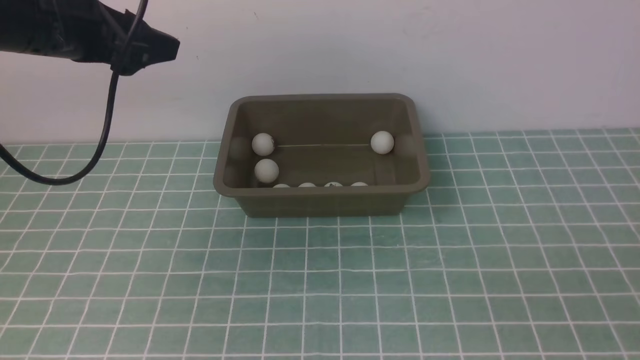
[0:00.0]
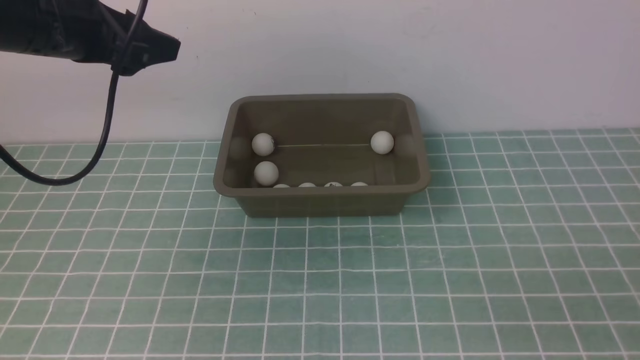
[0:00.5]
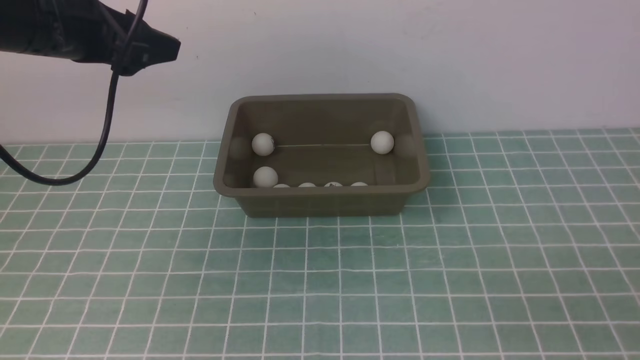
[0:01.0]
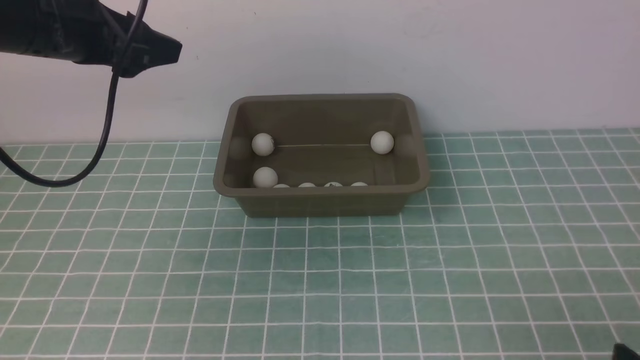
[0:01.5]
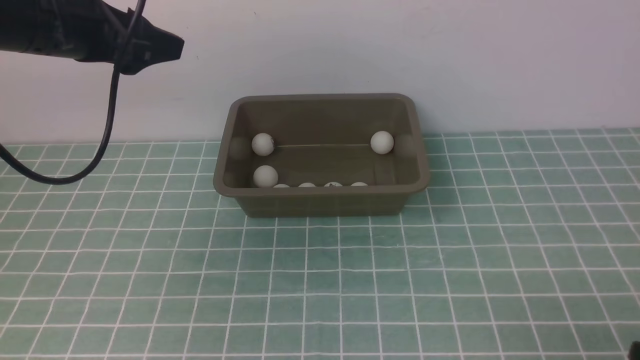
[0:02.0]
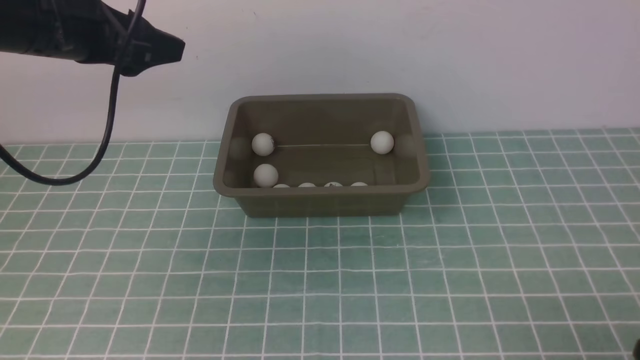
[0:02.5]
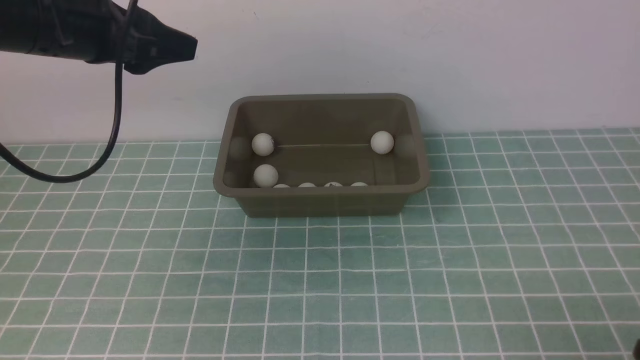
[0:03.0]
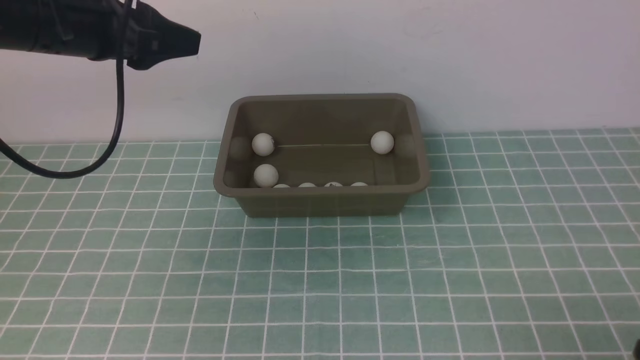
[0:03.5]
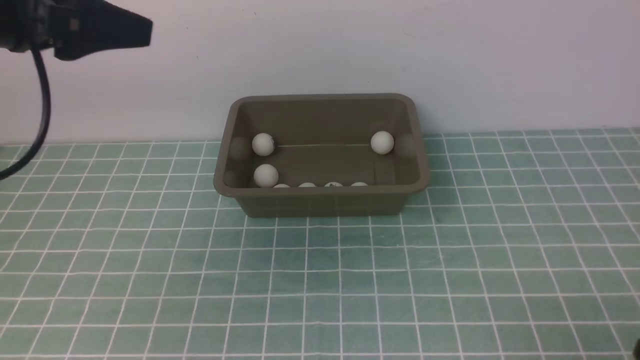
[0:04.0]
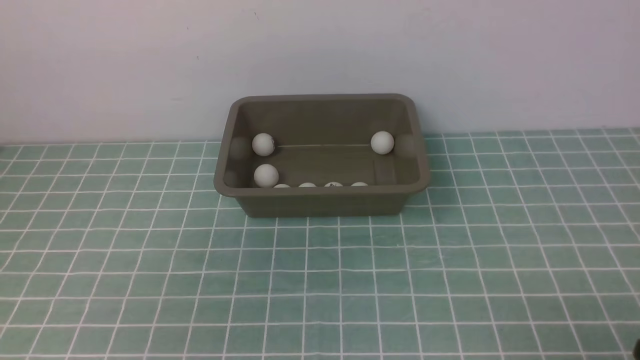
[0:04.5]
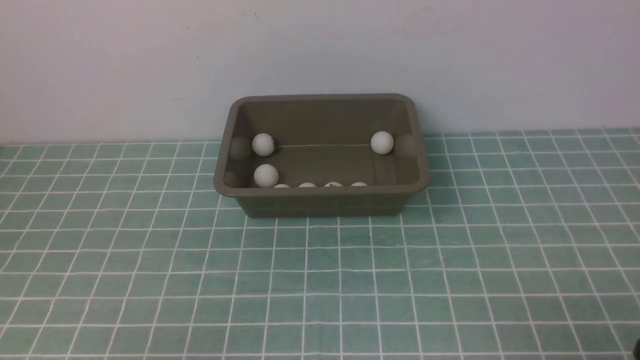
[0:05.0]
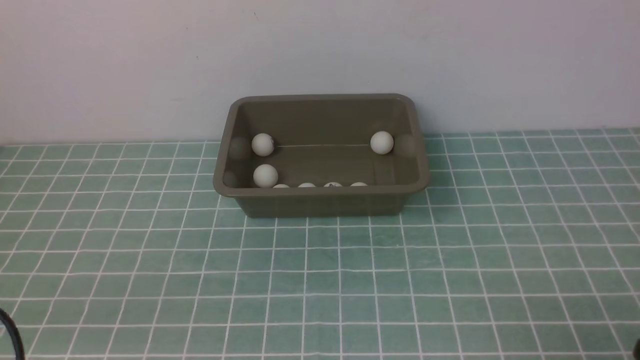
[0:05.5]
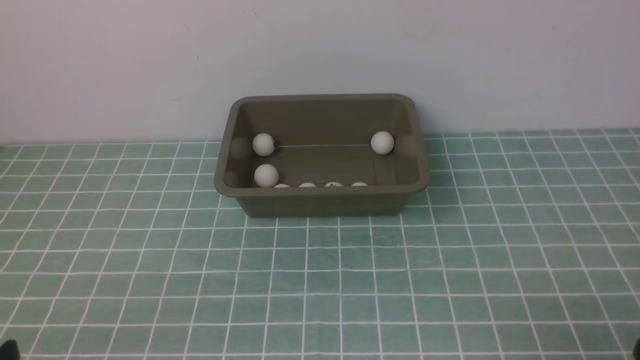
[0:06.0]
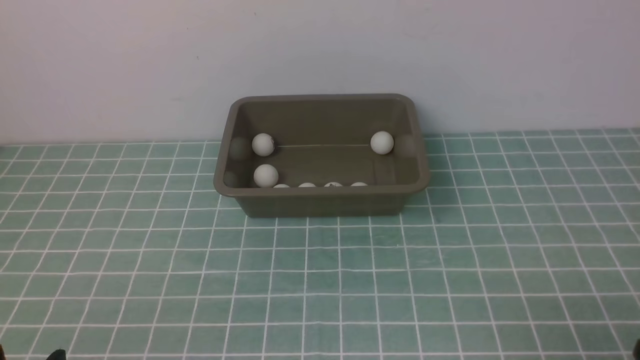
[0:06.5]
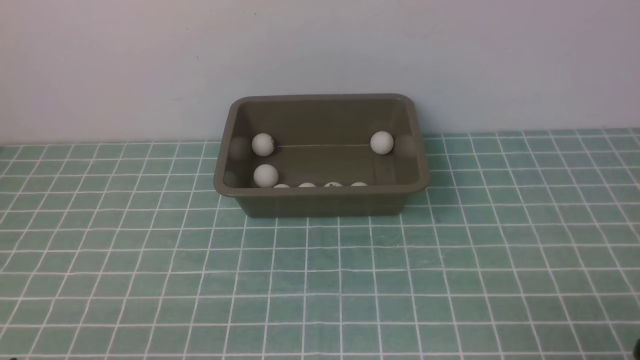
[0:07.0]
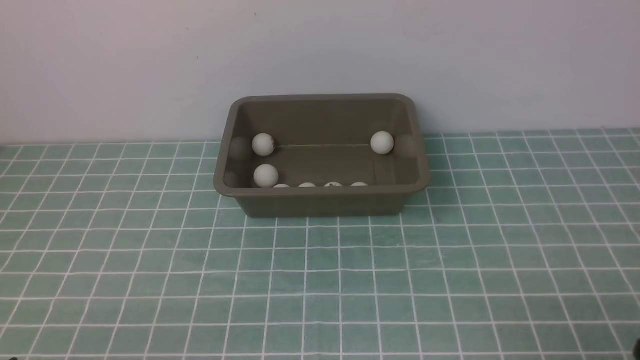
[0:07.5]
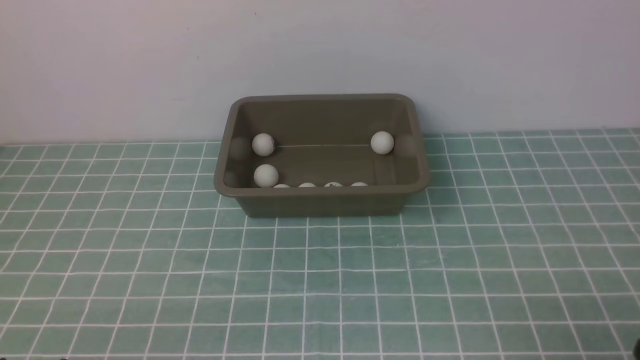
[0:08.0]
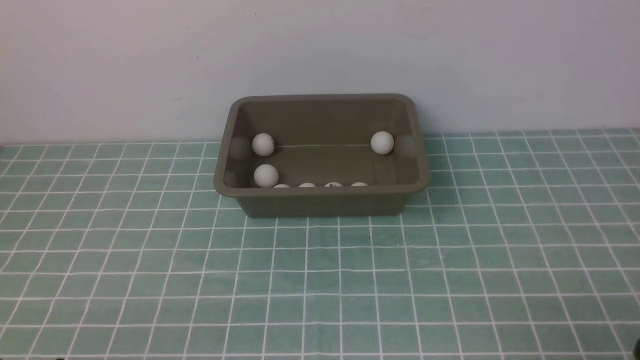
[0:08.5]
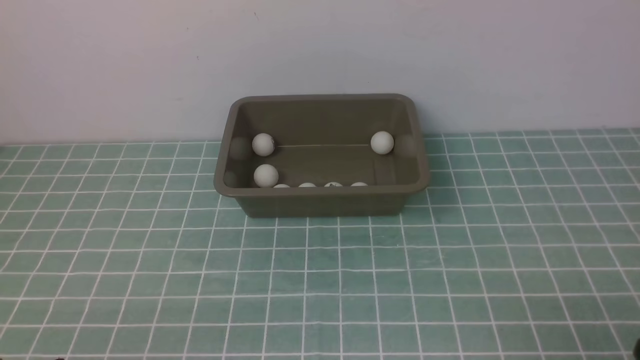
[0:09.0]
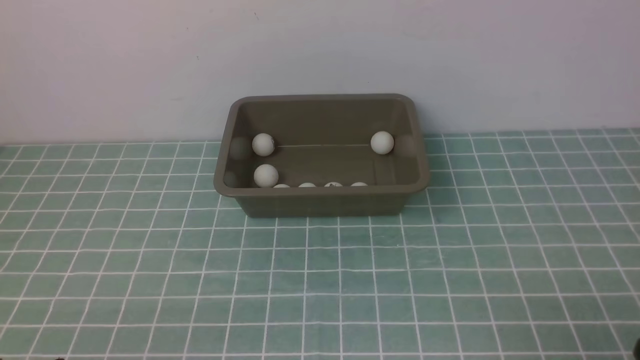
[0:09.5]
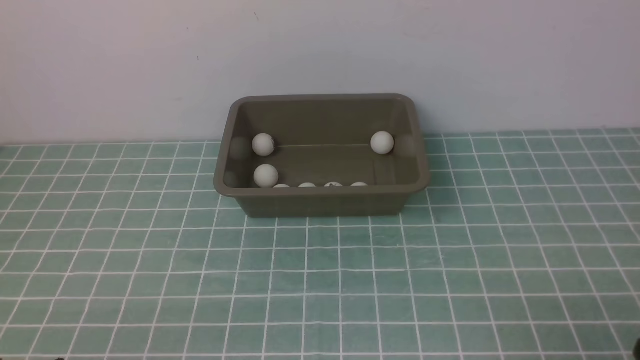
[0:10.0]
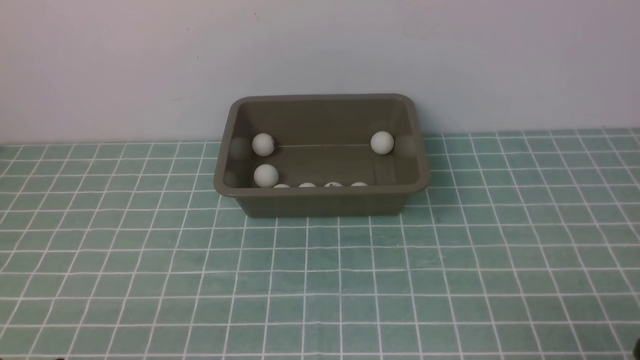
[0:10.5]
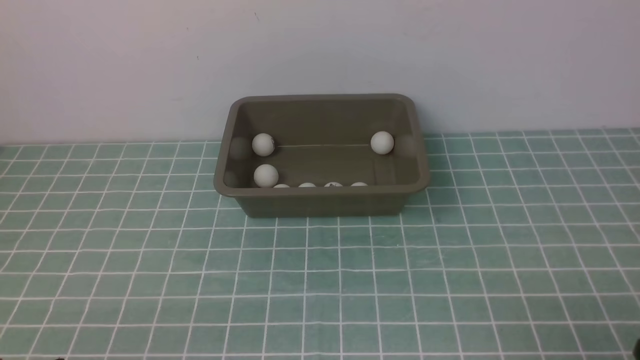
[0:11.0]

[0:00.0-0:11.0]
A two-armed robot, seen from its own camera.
0:02.0 to 0:03.5: The grippers stay close to where they were, moving slightly.
0:03.5 to 0:05.5: The left gripper goes some 30 cm backward and downward.
0:07.5 to 0:11.0: Both grippers stay put.

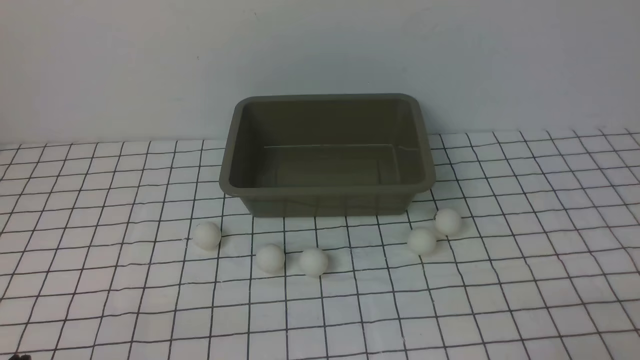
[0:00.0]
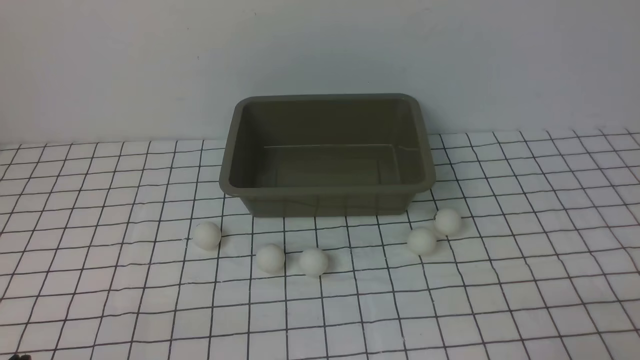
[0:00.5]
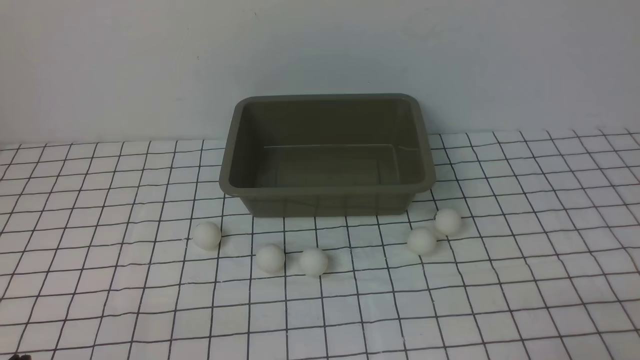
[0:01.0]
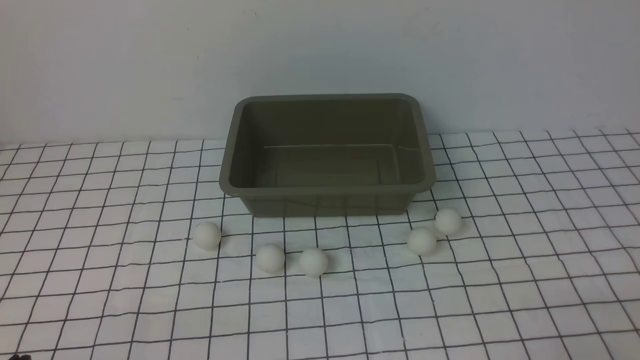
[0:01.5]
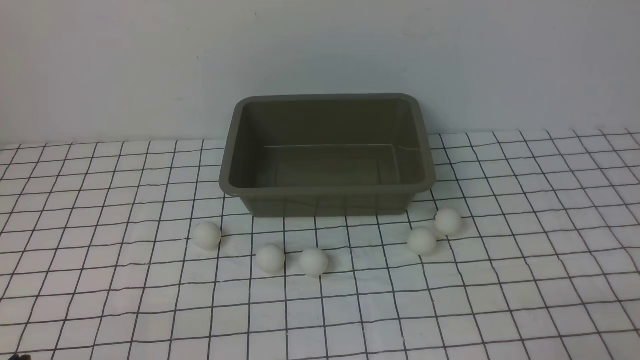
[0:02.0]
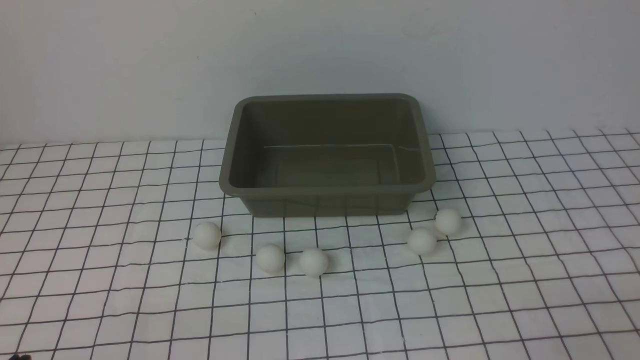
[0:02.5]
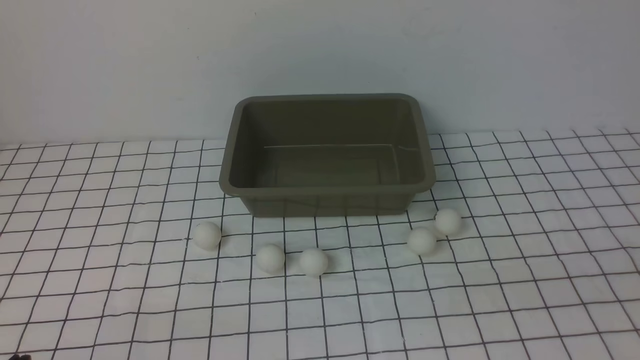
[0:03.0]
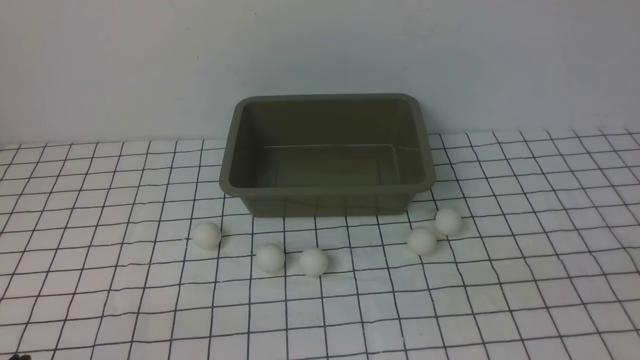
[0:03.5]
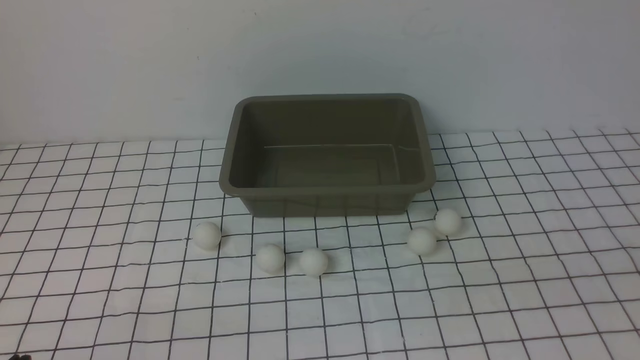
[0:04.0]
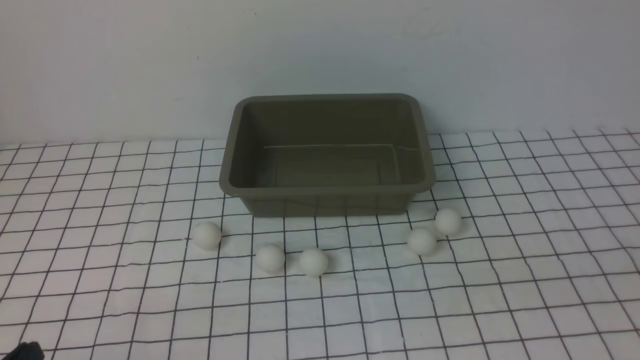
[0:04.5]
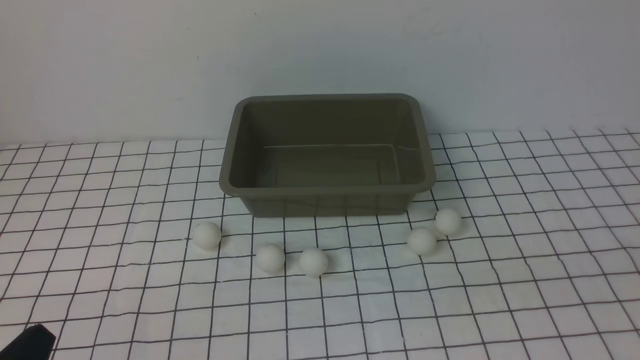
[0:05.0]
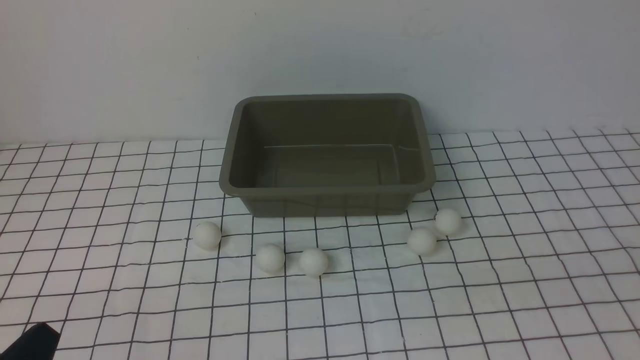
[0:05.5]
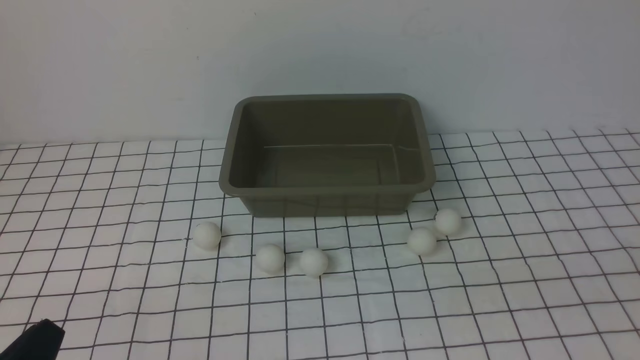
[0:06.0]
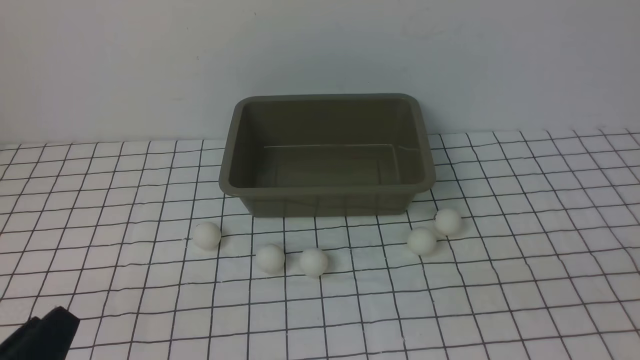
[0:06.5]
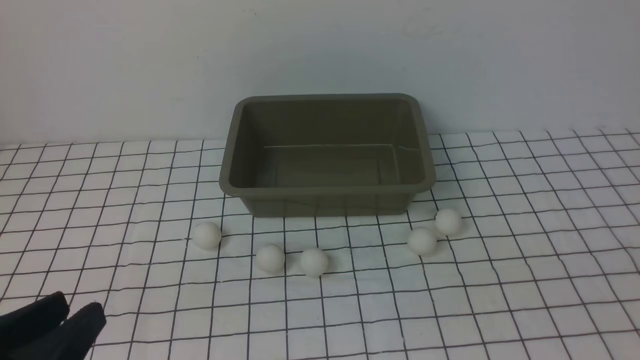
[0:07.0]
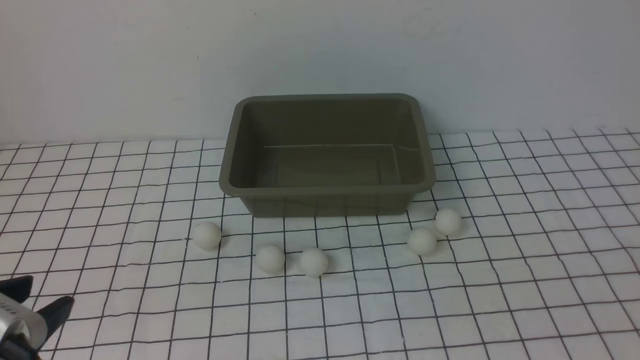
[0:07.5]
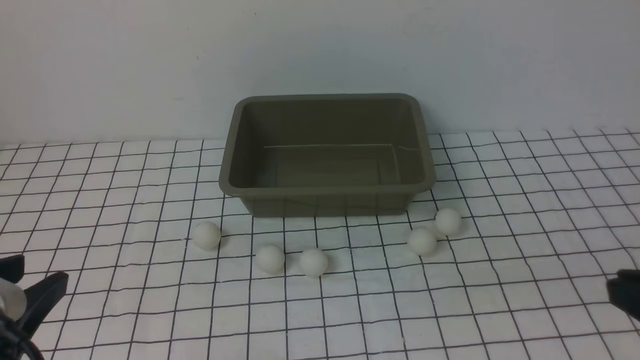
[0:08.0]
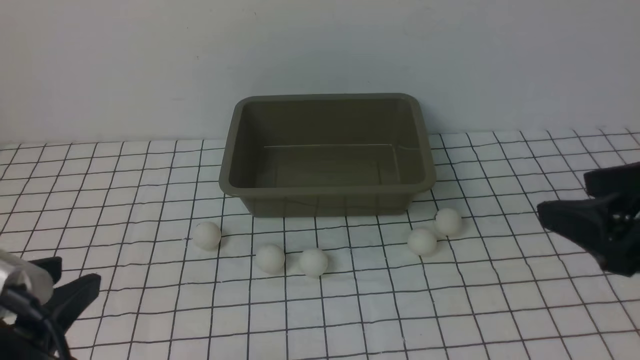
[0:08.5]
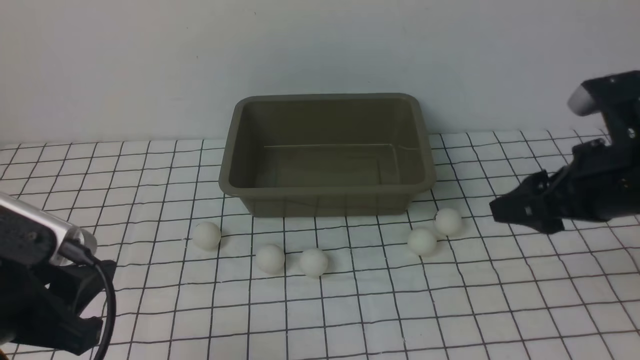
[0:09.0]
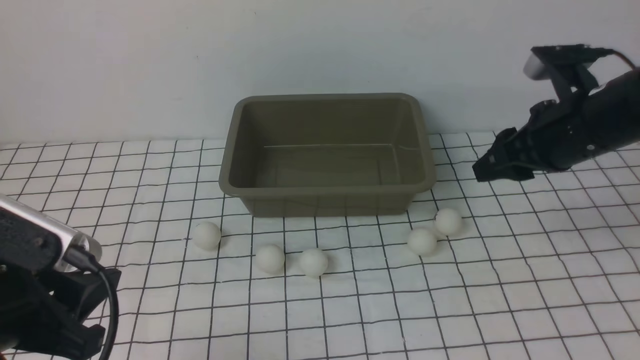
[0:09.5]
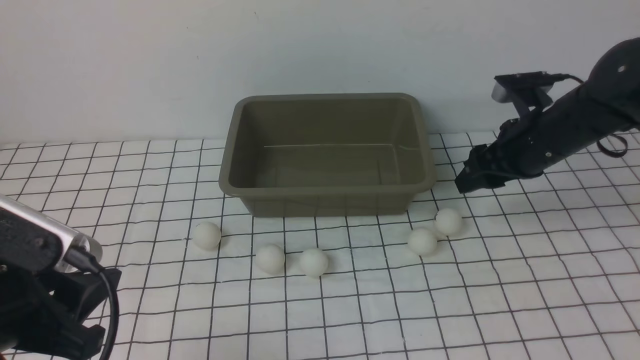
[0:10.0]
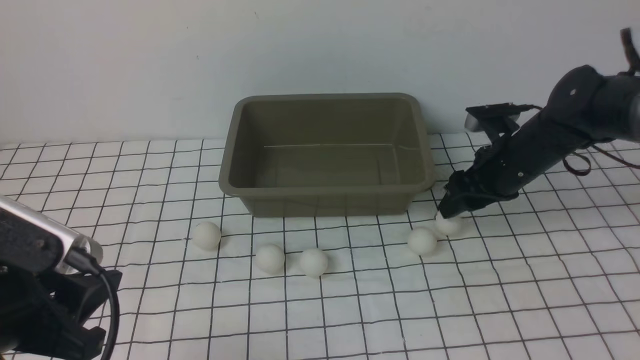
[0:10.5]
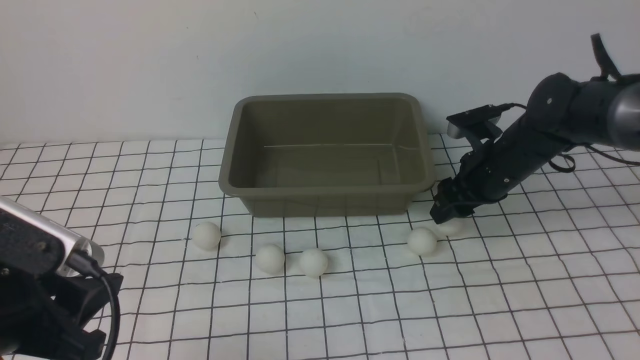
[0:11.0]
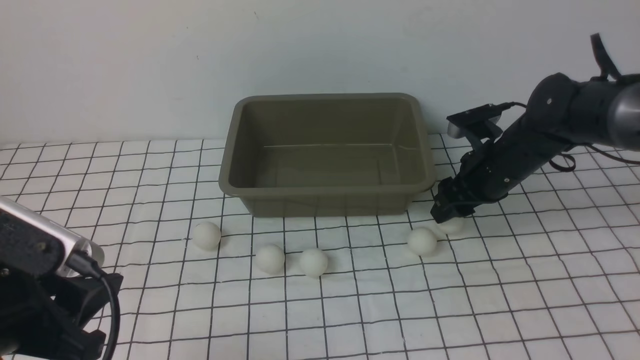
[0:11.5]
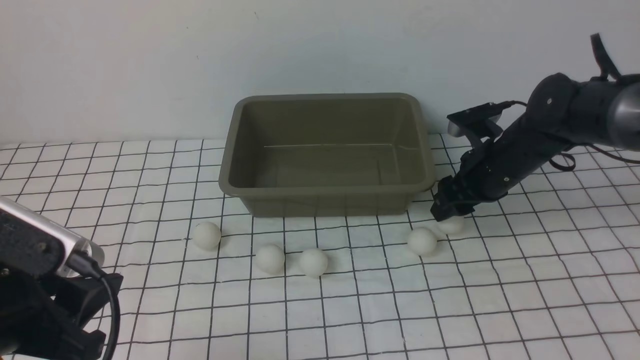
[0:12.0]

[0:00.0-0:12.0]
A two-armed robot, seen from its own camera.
0:00.0 to 0:02.0: The two grippers keep their place.
0:06.0 to 0:08.0: The left gripper moves upward, approximately 10 cm.
0:08.0 to 0:10.0: The right gripper heads forward, covering some 30 cm, and opens. Meanwhile the left gripper travels forward by roughly 5 cm.
0:10.0 to 0:12.0: The right gripper is displaced downward by some 5 cm.
